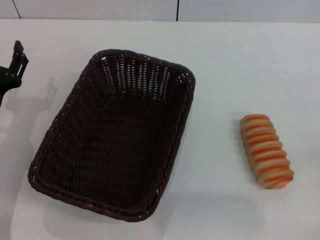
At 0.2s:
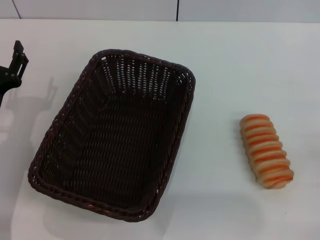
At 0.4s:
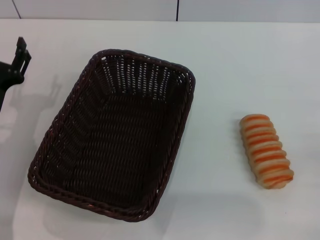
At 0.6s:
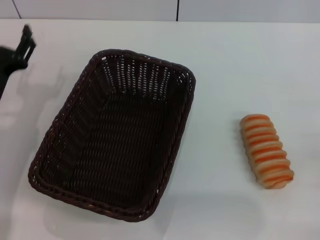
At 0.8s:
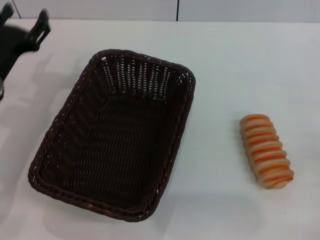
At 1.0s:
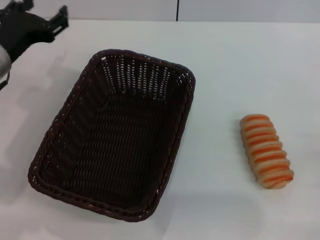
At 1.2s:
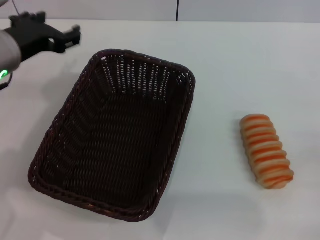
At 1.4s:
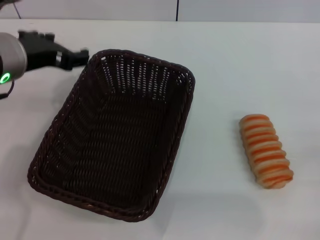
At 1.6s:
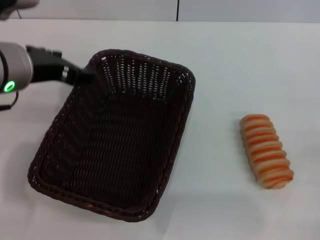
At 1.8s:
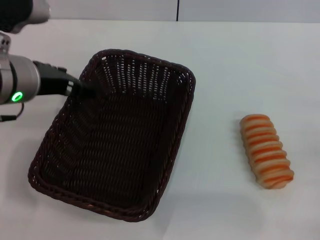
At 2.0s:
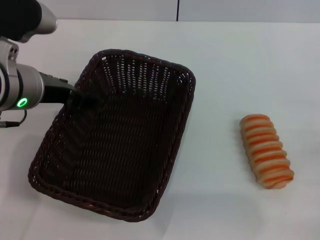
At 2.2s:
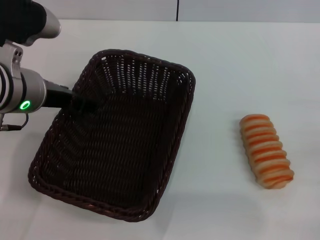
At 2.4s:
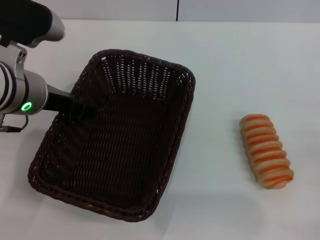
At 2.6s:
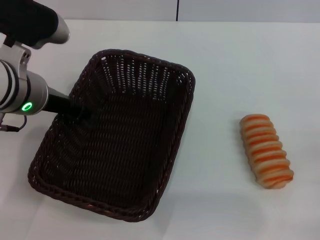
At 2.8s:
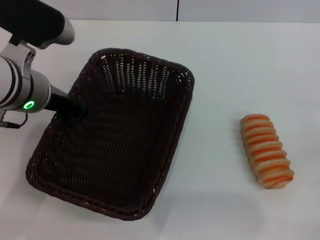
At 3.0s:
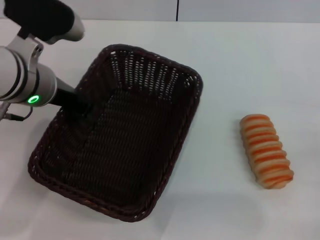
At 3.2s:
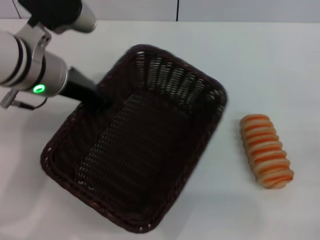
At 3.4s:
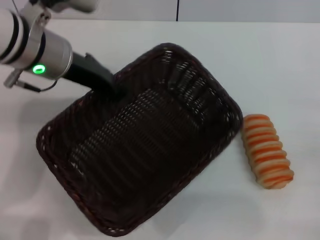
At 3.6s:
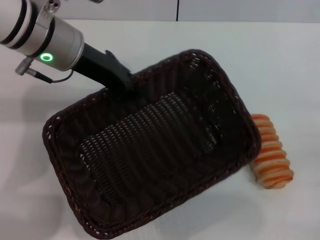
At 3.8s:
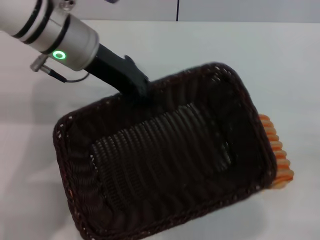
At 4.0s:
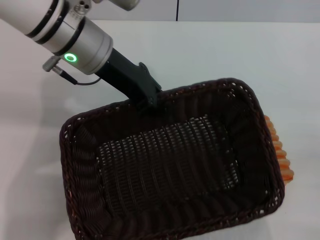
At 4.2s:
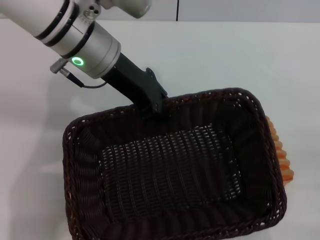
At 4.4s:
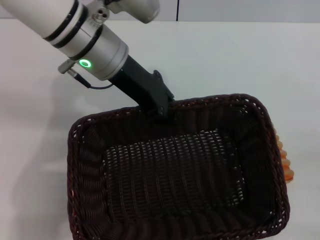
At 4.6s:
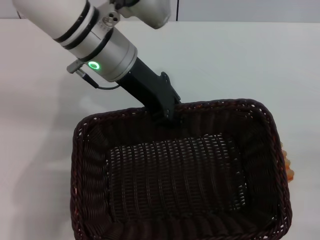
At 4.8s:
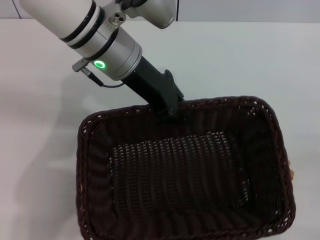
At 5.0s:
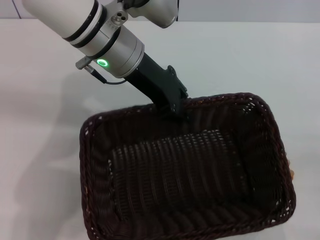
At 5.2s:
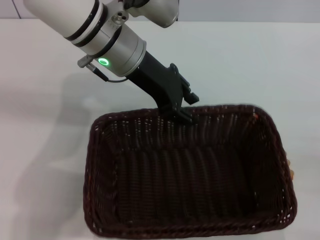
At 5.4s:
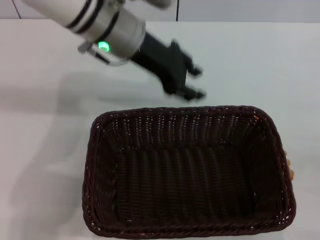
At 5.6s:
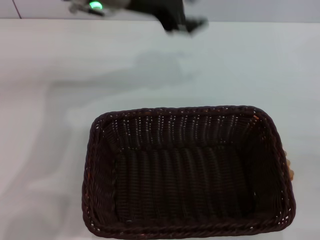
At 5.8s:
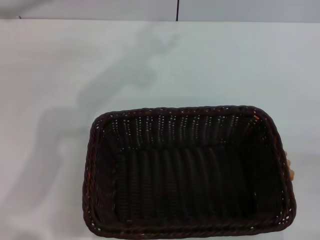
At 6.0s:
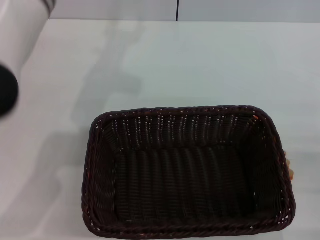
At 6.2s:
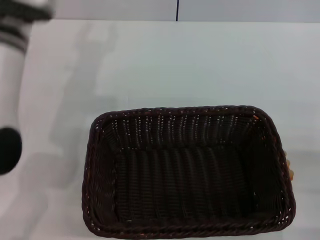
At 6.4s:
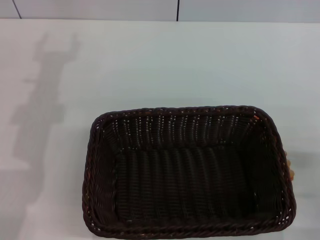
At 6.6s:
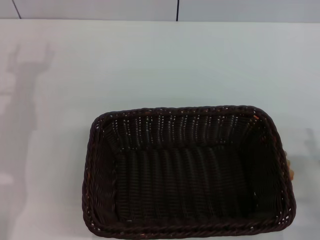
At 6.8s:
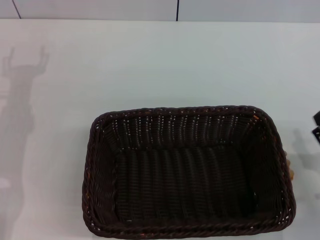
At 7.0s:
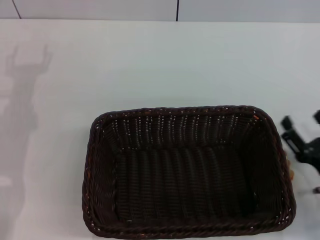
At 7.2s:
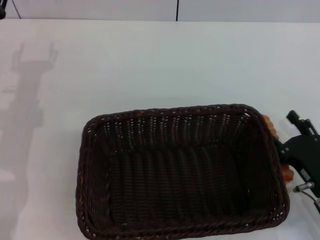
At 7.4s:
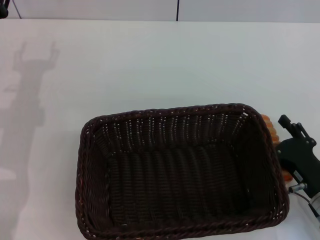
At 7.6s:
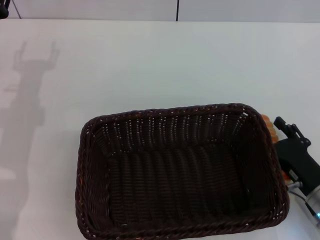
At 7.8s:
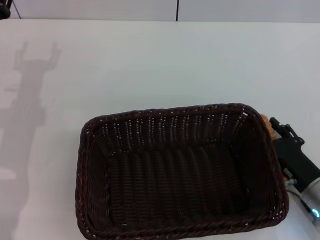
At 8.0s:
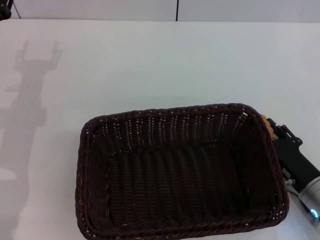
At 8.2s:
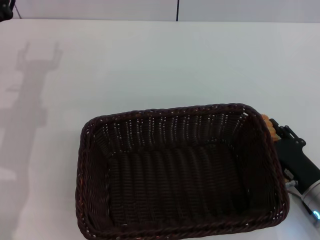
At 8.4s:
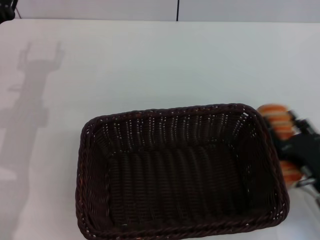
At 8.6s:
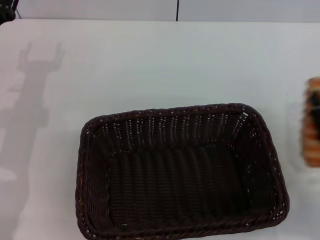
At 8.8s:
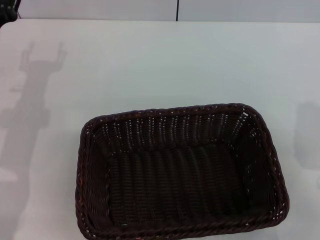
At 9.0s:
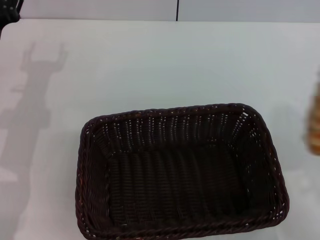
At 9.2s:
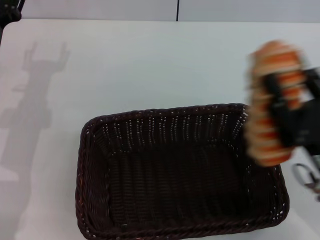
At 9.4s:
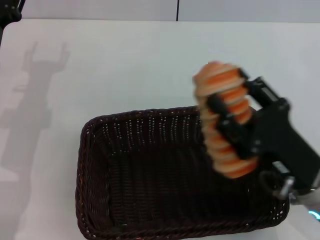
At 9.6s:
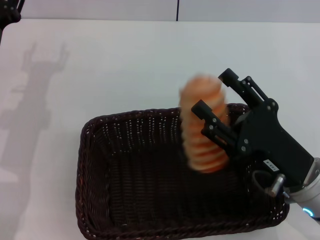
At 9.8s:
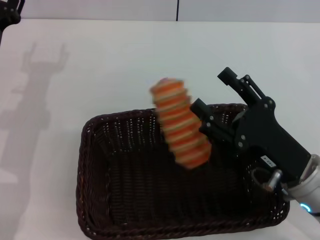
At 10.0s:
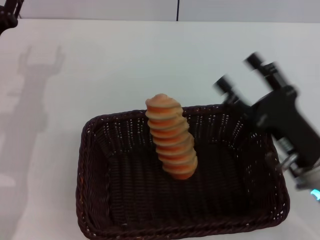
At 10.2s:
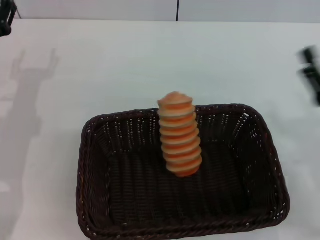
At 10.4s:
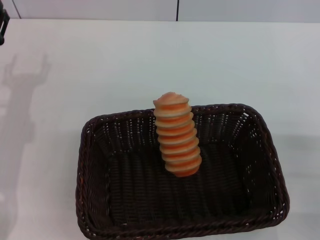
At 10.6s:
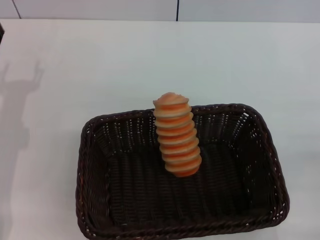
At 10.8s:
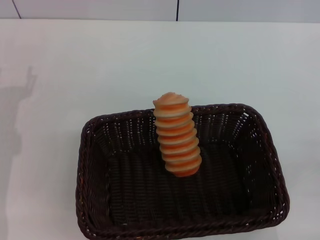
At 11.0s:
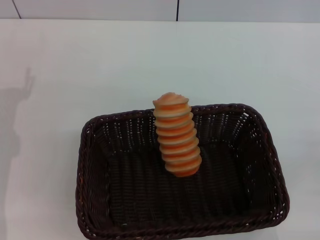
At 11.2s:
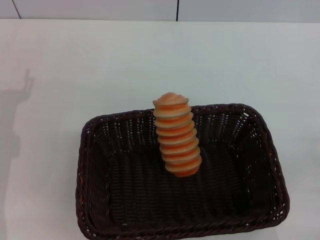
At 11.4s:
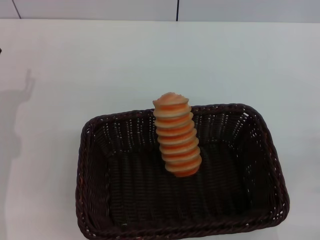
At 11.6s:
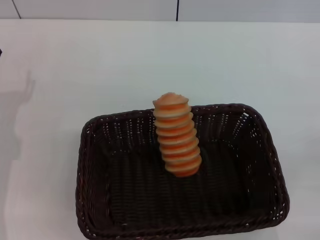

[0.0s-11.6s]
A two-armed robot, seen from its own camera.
Step, 0.0s to 3.2s: Pick up the dark basket with the left gripper.
Step, 3.6s to 5.2s: Place the dark basket in the center of view with the left gripper.
Step, 5.6s to 8.6s: Pick up the long bread with the right gripper.
Step, 8.8s to 9.8s: Place the long bread into the dark basket with the right gripper.
0.0s to 1.4s: The left gripper heads upward and to the right, covering some 20 cm.
1.4s to 2.8s: The left gripper closes.
2.8s to 4.4s: The left gripper goes about 10 cm to the right and forward, and closes its fingers.
4.4s to 5.8s: The left gripper shifts by about 5 cm, and opens its fingers.
5.8s to 7.2s: The right gripper is displaced to the left by approximately 10 cm; the left gripper goes about 20 cm to the left, downward and backward.
7.2s to 8.8s: The right gripper moves approximately 5 cm, and closes up.
8.8s to 10.2s: The right gripper opens.
10.2s to 11.6s: The left gripper ends up about 5 cm from where it was; the right gripper shifts about 10 cm to the right and backward.

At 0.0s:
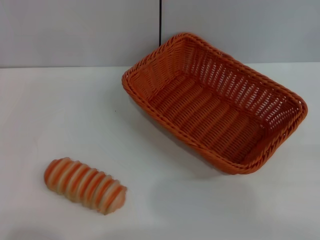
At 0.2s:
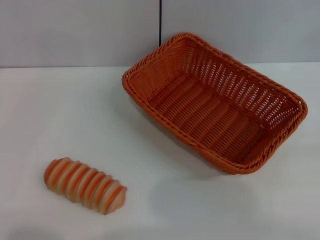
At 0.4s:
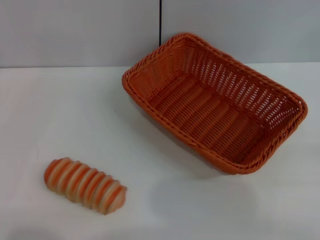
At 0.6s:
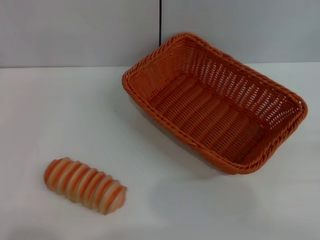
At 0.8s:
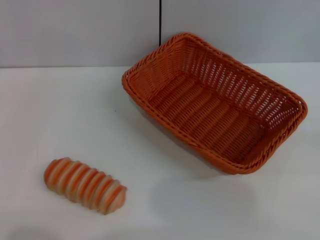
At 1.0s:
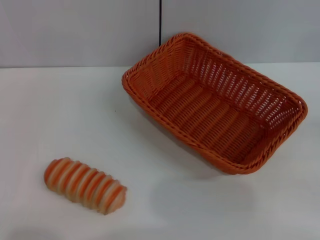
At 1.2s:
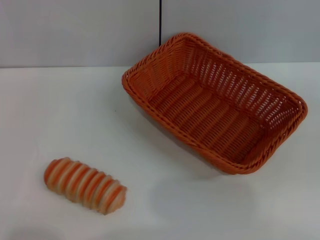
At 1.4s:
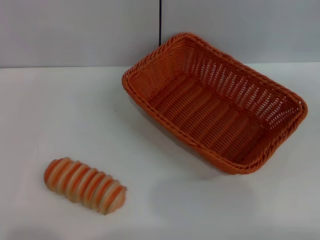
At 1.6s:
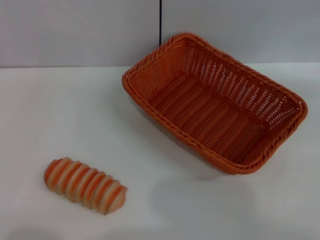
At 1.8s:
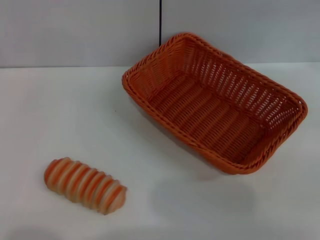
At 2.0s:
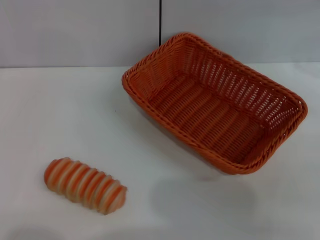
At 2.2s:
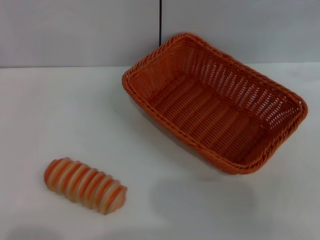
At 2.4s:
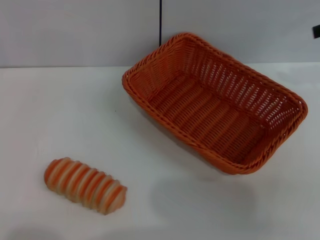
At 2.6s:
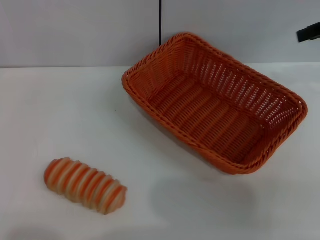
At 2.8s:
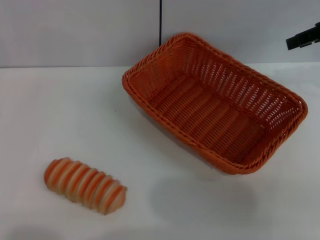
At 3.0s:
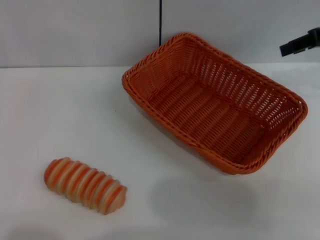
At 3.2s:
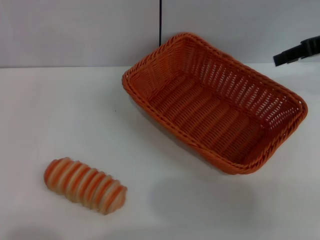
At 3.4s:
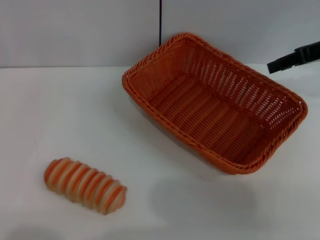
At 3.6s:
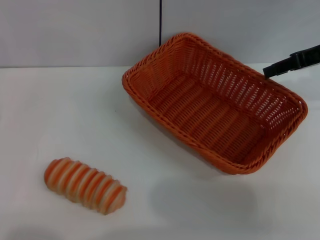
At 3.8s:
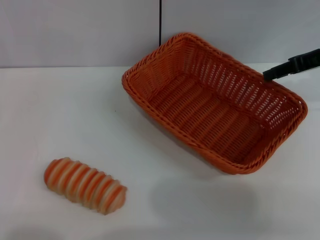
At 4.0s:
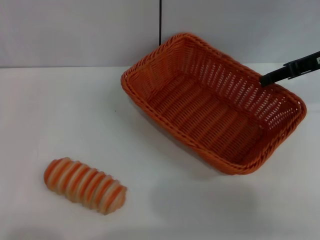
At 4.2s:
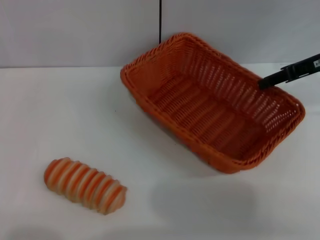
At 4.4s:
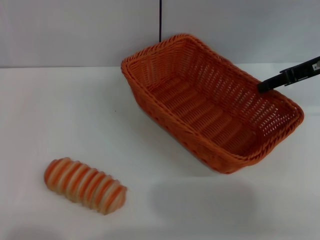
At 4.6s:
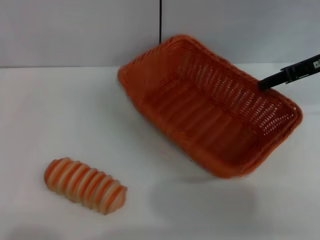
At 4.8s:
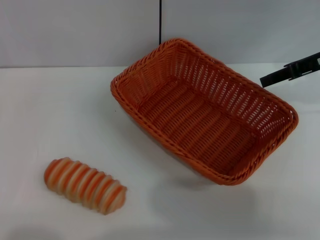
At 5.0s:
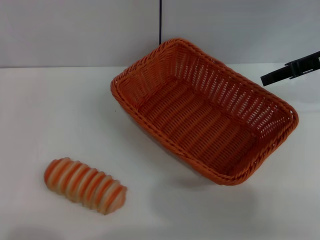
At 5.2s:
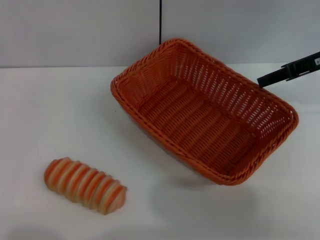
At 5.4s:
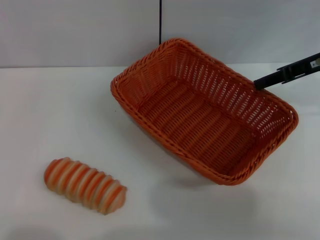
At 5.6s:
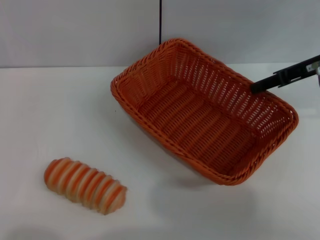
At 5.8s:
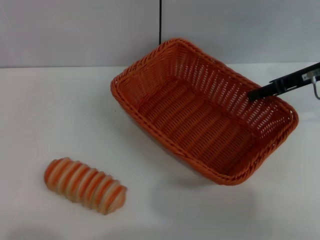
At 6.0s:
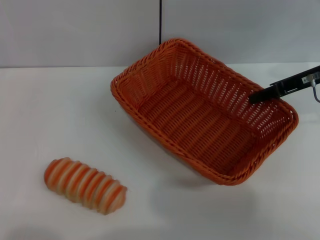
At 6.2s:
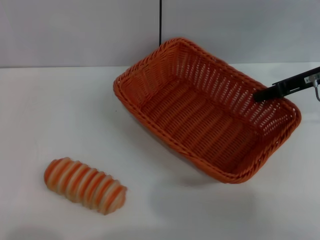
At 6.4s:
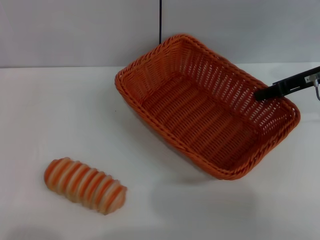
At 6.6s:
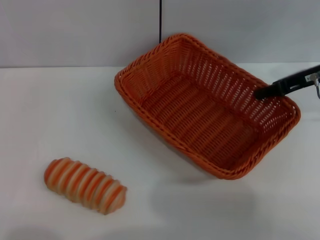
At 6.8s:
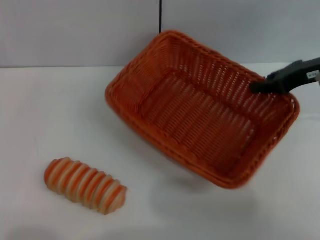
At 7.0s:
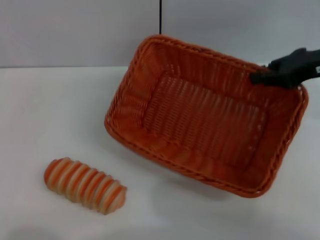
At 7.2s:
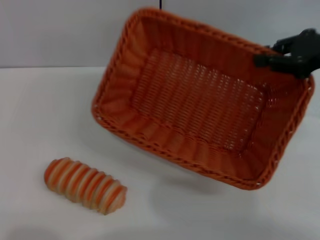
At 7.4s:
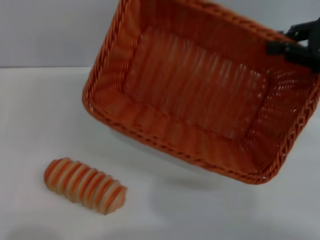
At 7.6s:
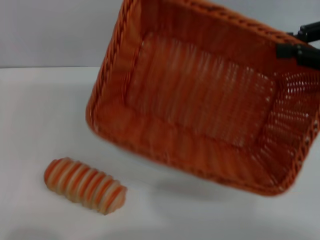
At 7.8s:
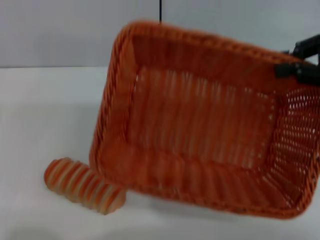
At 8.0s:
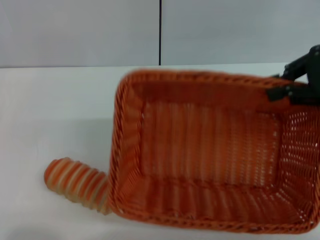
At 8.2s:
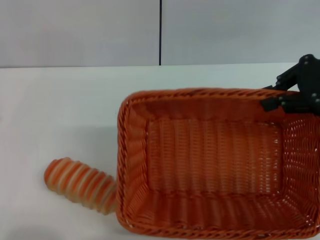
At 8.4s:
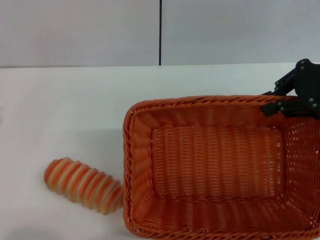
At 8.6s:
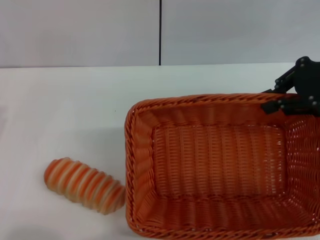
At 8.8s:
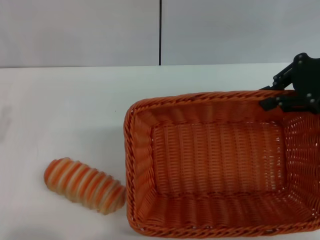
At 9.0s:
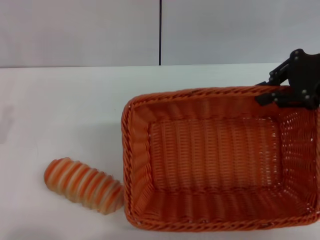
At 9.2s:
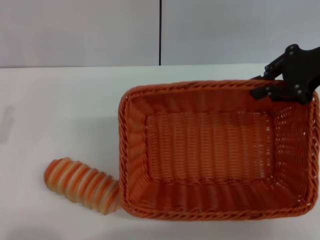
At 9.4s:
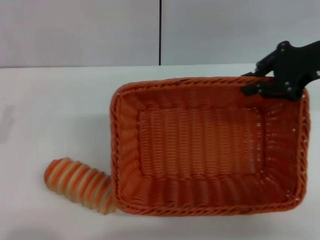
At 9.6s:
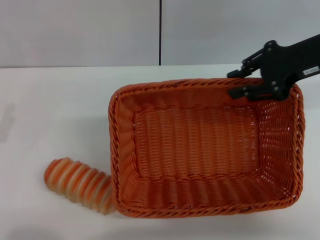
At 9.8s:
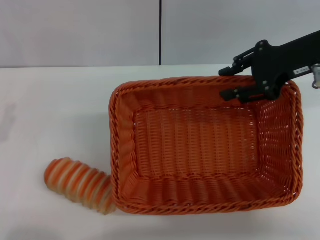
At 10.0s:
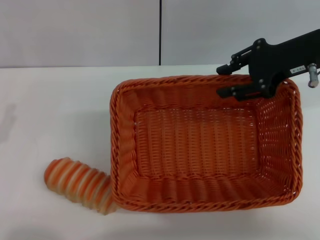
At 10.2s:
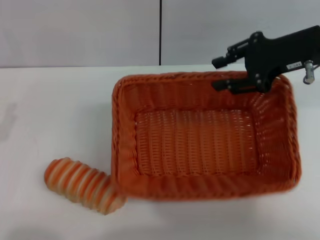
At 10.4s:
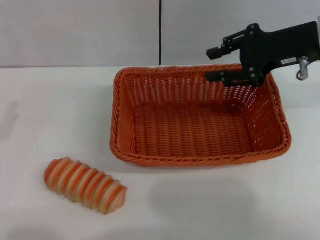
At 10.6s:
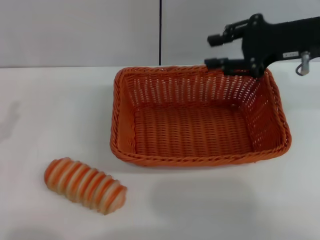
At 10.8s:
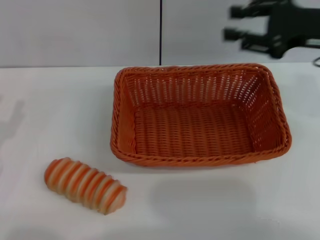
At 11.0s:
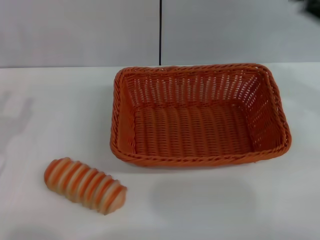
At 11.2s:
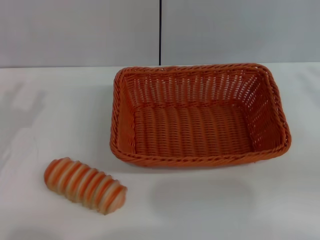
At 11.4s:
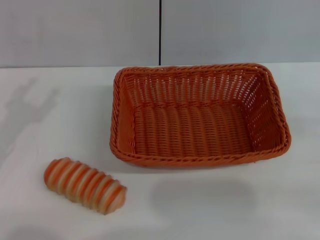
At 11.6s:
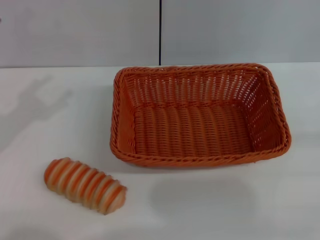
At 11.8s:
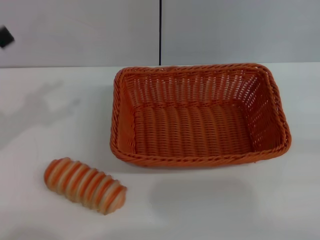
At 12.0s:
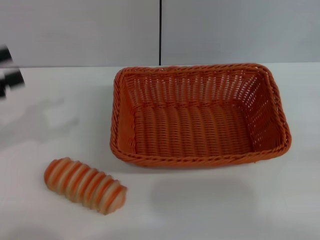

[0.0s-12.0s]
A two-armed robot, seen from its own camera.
Step, 0.0s to 7.2s: Pick up the light basket with the right gripper.
Step, 7.4s to 10.6s: Place the light basket in the center of view with the right gripper.
1.6s to 3.0s: The right gripper goes some 20 cm to the left and forward.
3.0s to 4.4s: The right gripper moves downward, some 5 cm.
4.4s to 6.0s: The grippers move only a little.
6.0s to 7.6s: The right gripper goes approximately 10 cm upward and backward, and closes.
7.6s to 9.0s: The right gripper shifts by approximately 5 cm.
9.0s to 10.4s: The right gripper ends up about 5 cm from where it was, and opens up.
10.4s to 12.0s: The left gripper goes roughly 10 cm upward and forward. The right gripper goes roughly 35 cm backward, to the right and downward.
